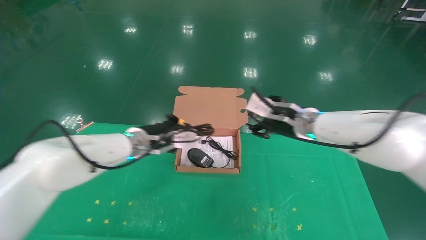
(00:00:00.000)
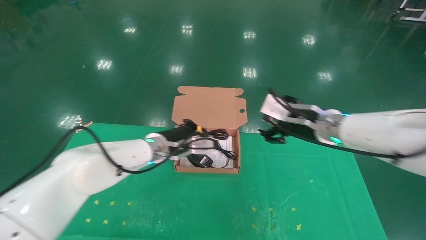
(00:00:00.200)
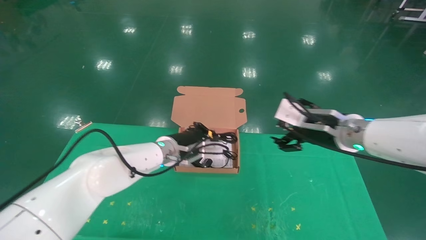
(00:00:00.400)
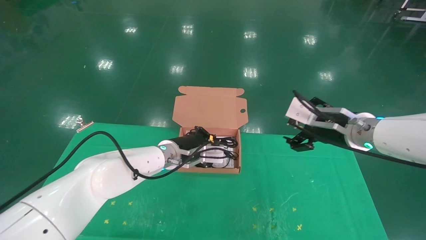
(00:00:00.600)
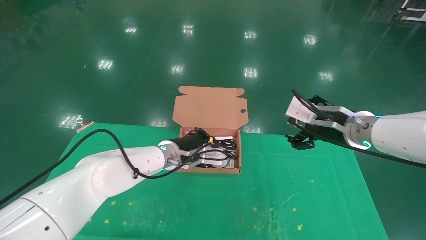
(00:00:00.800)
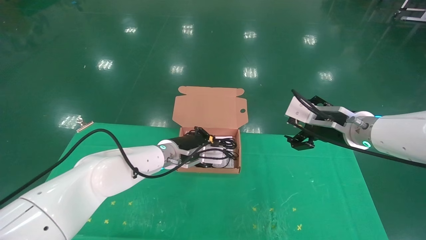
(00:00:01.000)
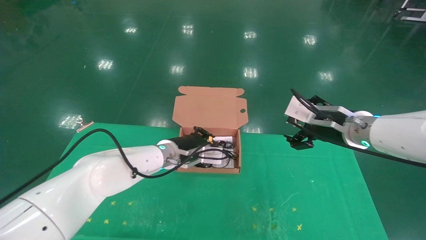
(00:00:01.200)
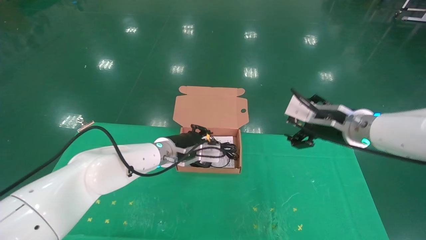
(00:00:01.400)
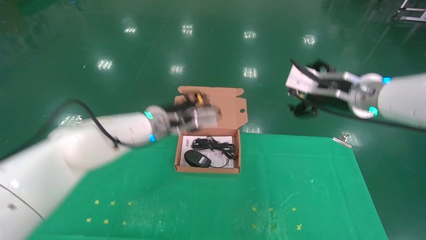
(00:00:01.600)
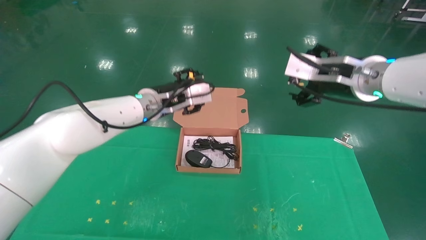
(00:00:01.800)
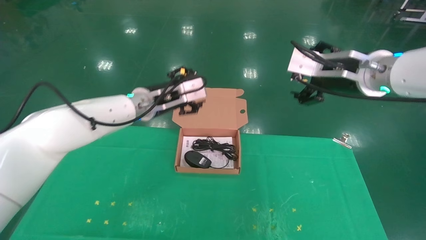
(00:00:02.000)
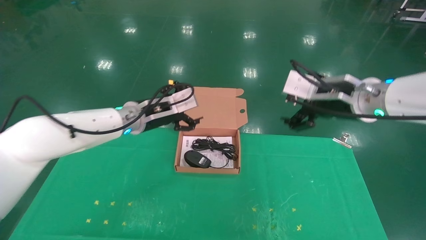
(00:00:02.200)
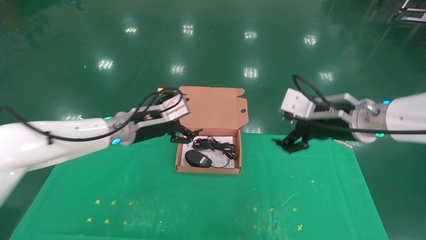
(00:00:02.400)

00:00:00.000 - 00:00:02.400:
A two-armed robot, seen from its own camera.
Task of the whole recording: grasp data cable left put into box grasp mouse right put into box.
00:00:00.000 - 00:00:01.200: The right gripper shifts some 10 cm to the right and backward, and opens up. Meanwhile the left gripper heads to the right, covering approximately 5 cm.
00:00:01.200 - 00:00:02.400: The left gripper moves to the left and upward, roughly 10 cm, and opens its fingers.

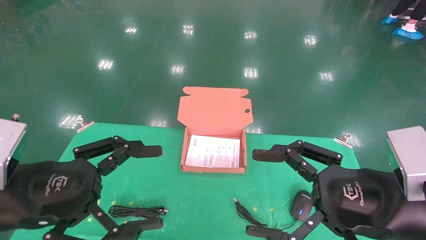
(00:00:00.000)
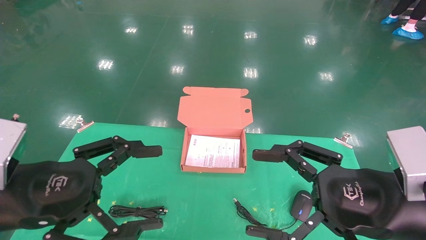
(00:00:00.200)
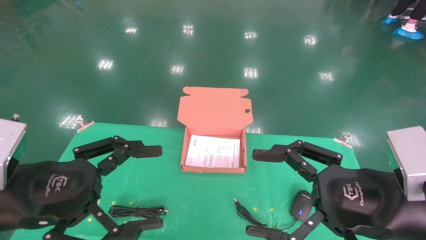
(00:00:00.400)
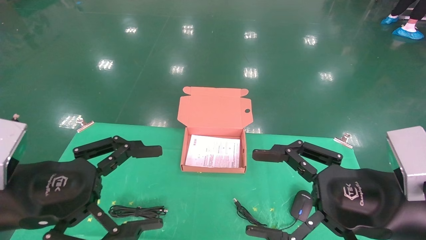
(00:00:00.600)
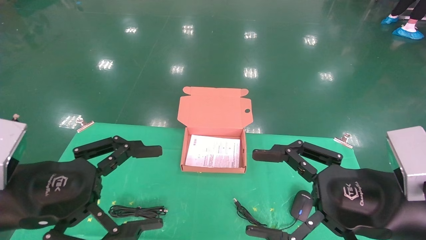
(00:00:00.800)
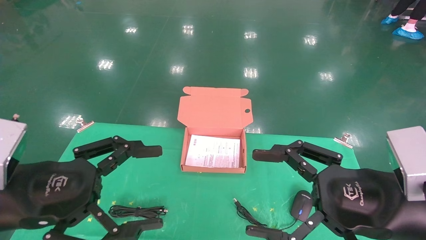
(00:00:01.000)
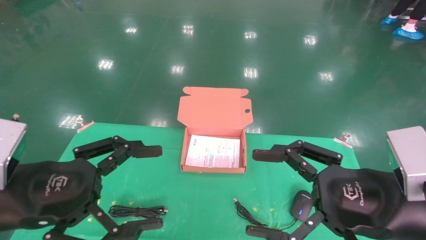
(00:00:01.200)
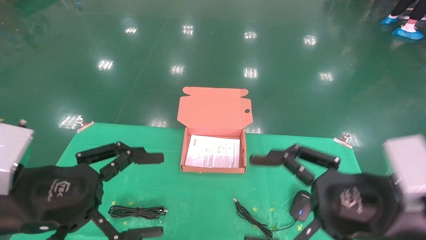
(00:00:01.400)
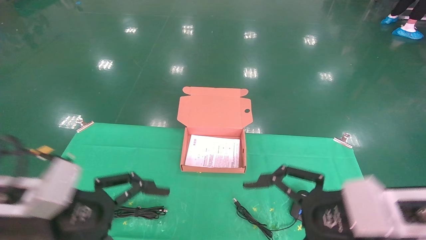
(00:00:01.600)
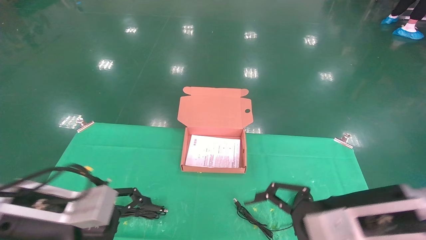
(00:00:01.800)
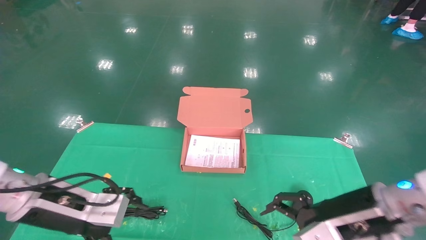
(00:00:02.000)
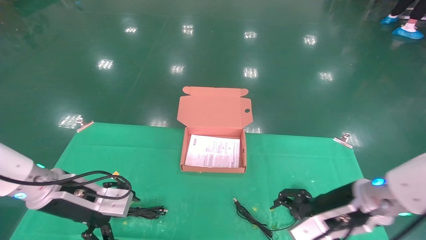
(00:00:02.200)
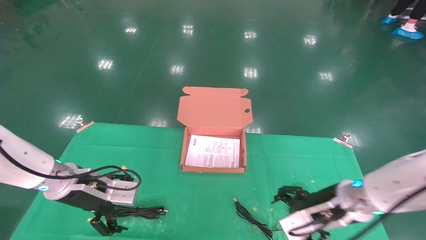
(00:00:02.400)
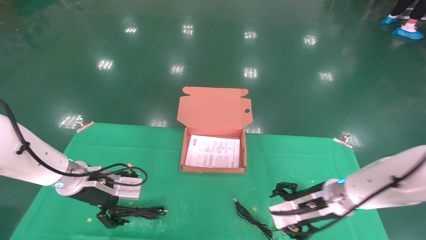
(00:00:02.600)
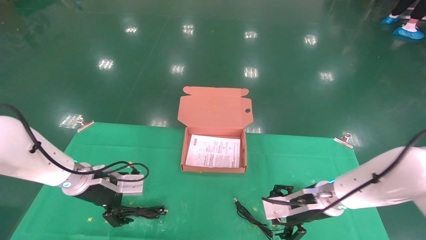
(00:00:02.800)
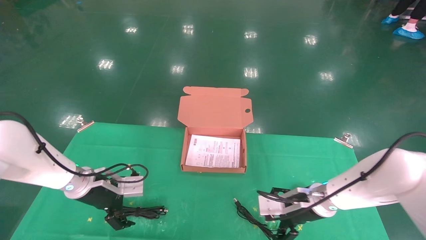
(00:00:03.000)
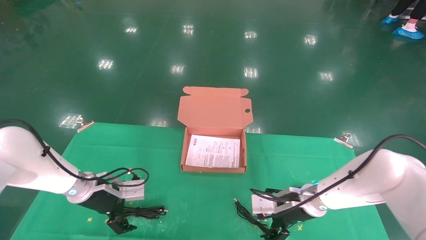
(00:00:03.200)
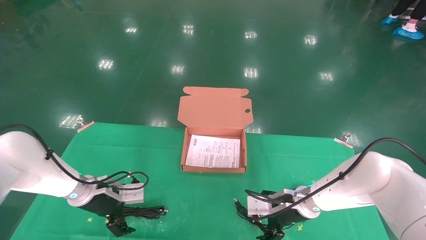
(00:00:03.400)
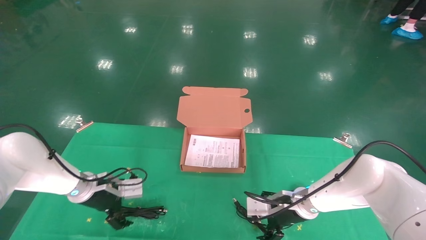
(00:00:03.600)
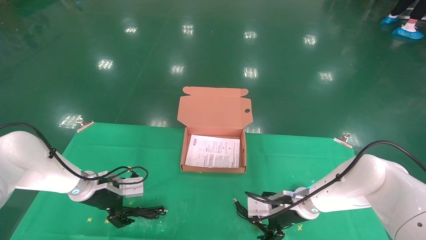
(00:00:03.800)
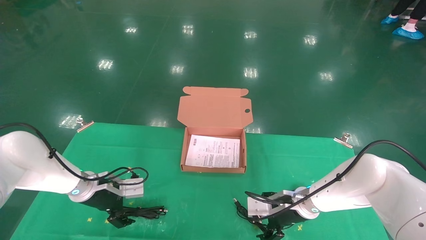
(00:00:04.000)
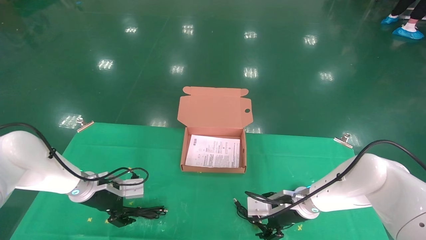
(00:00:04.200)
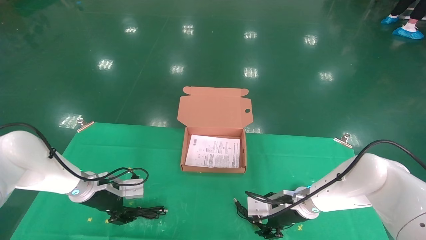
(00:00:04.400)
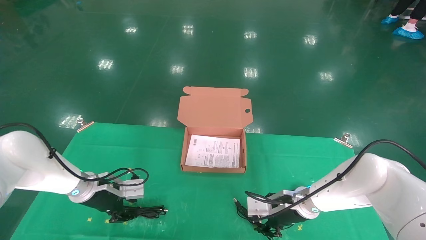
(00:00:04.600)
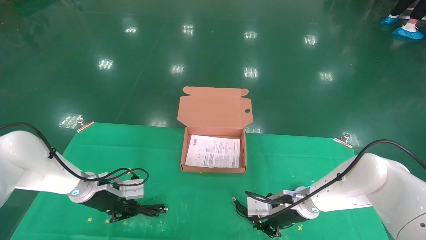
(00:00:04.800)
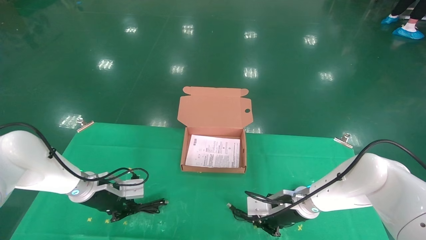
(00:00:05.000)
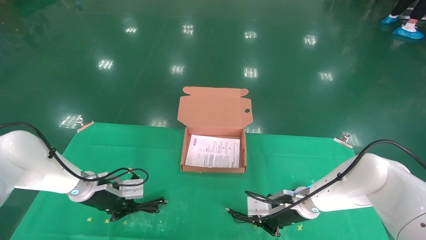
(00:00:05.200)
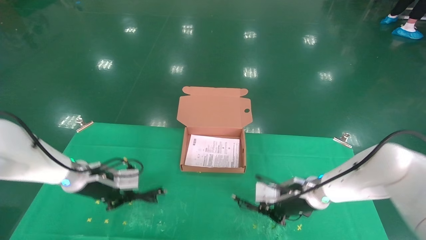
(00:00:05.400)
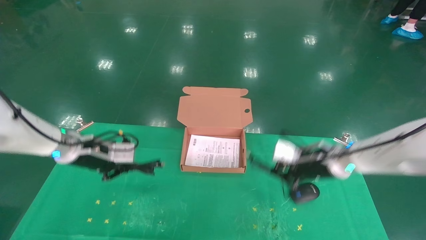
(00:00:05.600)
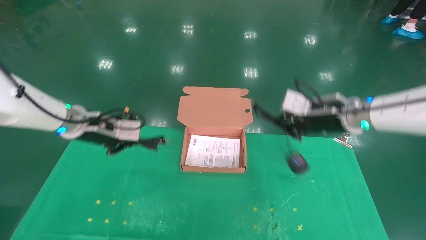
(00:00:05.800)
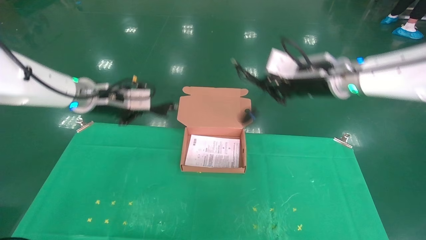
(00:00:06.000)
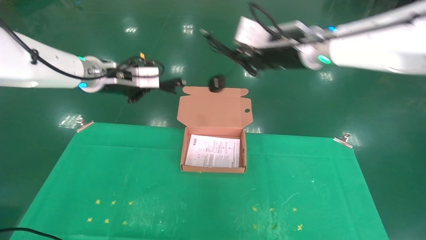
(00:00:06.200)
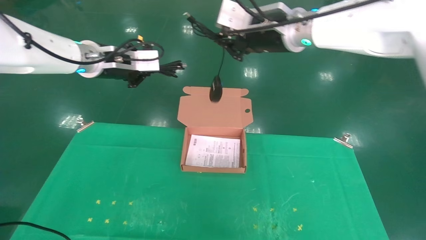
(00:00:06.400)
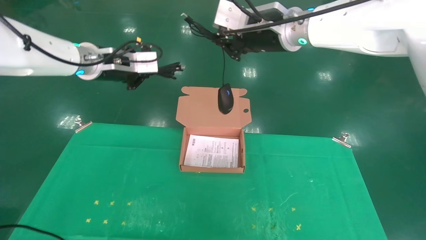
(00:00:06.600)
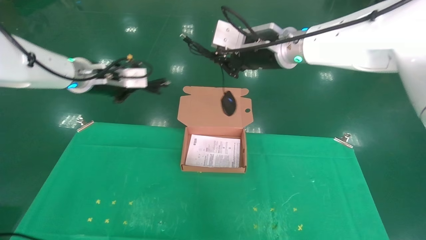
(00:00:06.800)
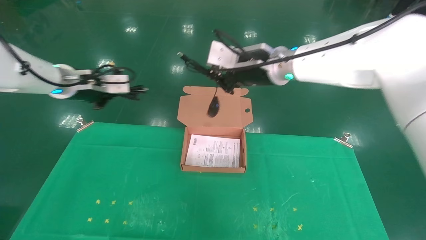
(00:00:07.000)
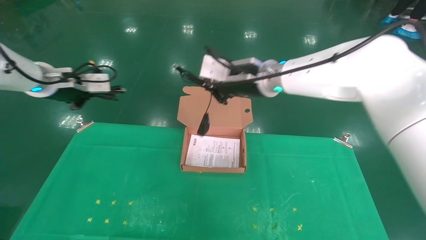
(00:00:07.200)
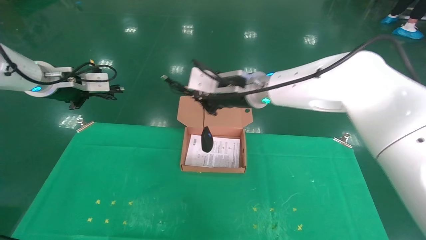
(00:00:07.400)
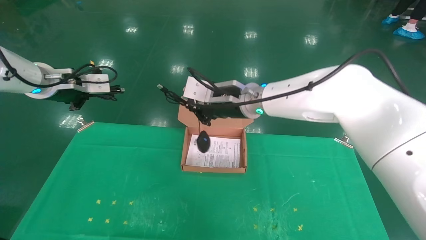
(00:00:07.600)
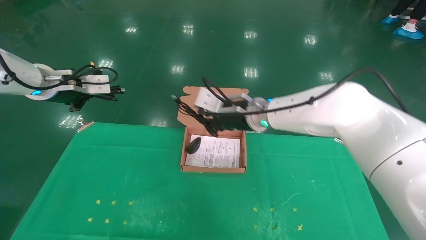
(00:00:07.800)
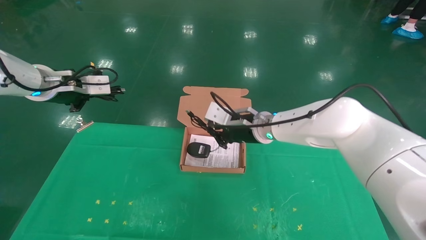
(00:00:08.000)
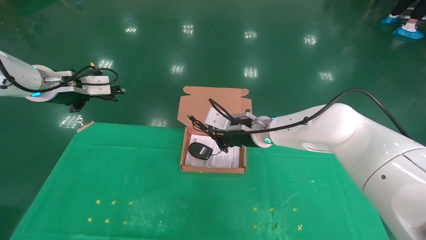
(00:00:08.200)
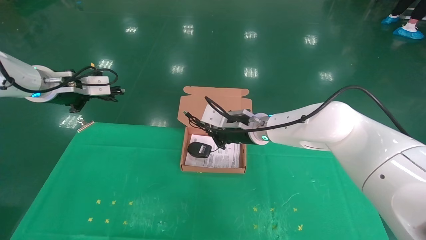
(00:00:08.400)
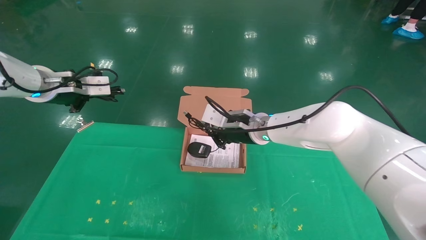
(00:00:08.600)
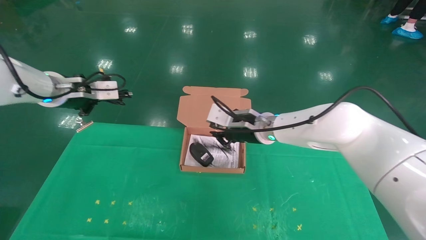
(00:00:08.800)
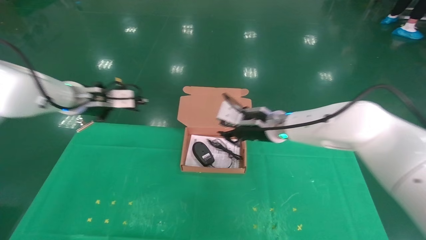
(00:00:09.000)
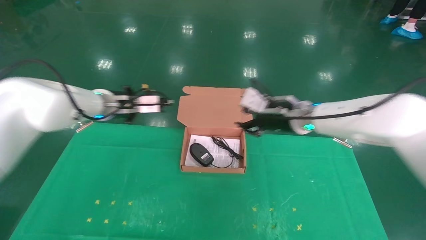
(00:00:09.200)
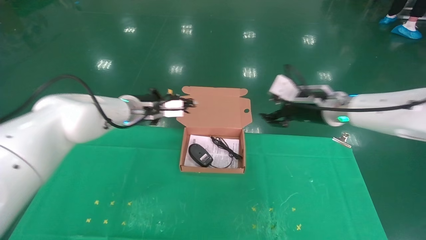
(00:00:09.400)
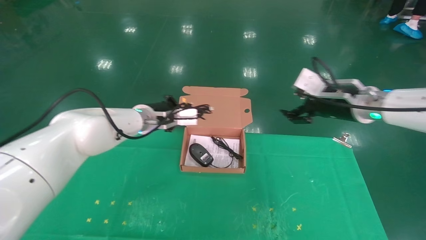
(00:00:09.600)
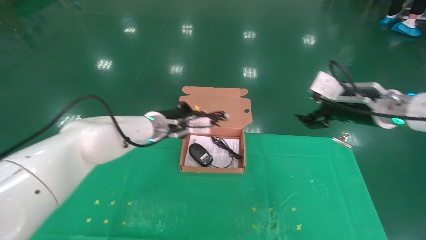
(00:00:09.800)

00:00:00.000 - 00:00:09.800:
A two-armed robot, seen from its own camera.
Task of the whole recording: grasp data cable left put into box grasp mouse right put into box.
Step, 00:00:00.800 - 00:00:05.200: Grab and pick up both the mouse and power cord from the accessory packaging area at the same time.
00:00:00.000 - 00:00:01.400: The grippers stay close to where they were, moving slightly.
00:00:01.400 - 00:00:02.800: Both grippers travel together forward and downward, approximately 25 cm.
00:00:02.800 - 00:00:04.200: The left gripper shifts by approximately 5 cm. The right gripper ends up some 5 cm from where it was.
00:00:04.200 - 00:00:05.600: Both grippers move upward, roughly 15 cm. The left gripper closes up. The right gripper closes.
00:00:05.600 - 00:00:07.000: The right gripper shifts about 20 cm upward and to the left; the left gripper shifts some 15 cm upward.
00:00:07.000 - 00:00:08.400: The right gripper travels downward by some 15 cm.
00:00:08.400 - 00:00:09.800: The right gripper heads to the right, covering about 20 cm, and opens; the left gripper moves to the right and downward, about 25 cm.

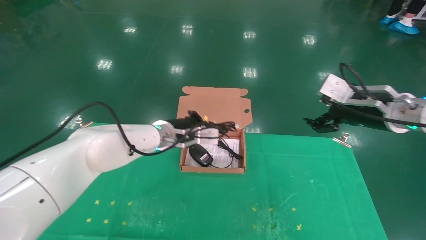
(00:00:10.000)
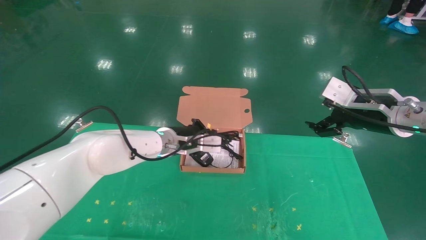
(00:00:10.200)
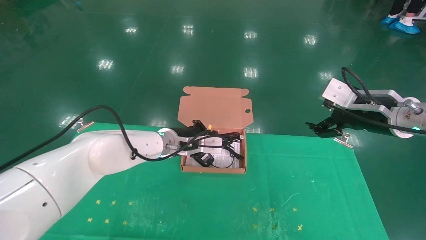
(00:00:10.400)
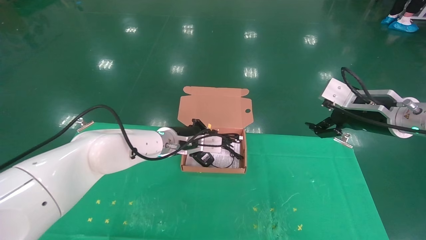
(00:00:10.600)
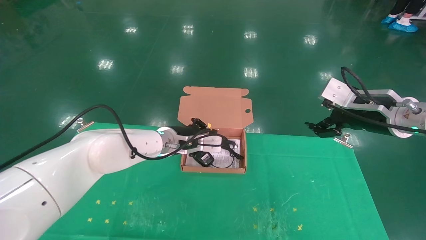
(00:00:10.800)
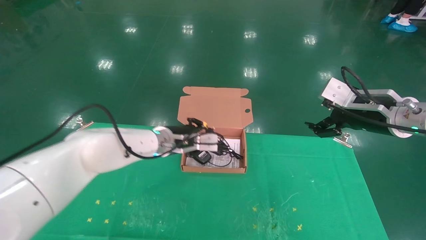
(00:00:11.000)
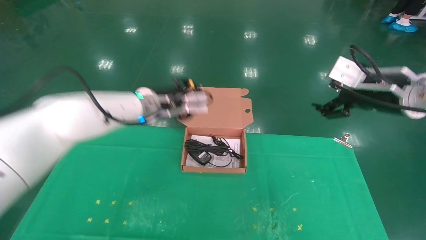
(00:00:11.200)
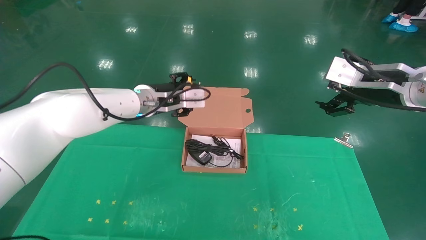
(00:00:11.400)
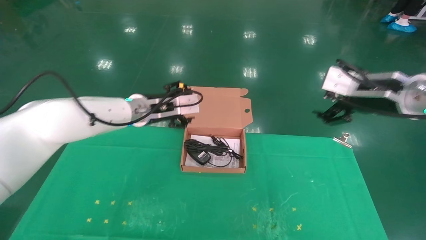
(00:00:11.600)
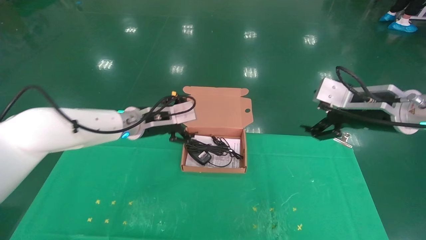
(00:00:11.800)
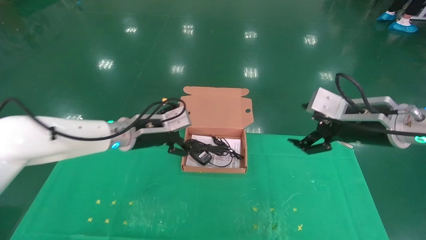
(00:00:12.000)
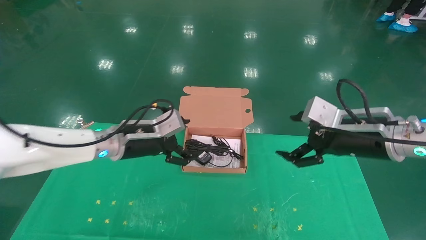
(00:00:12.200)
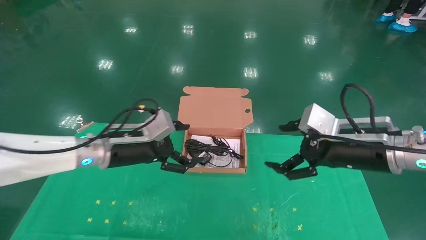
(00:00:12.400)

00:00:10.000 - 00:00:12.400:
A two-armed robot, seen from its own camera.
Task of the whole recording: grasp data cable left put into box grasp mouse right put into box.
00:00:10.000 - 00:00:11.200: The left gripper moves upward, some 5 cm, and opens.
00:00:11.200 - 00:00:12.400: The right gripper moves downward, about 10 cm. Meanwhile the left gripper moves backward, to the left and downward, roughly 10 cm, and opens.
